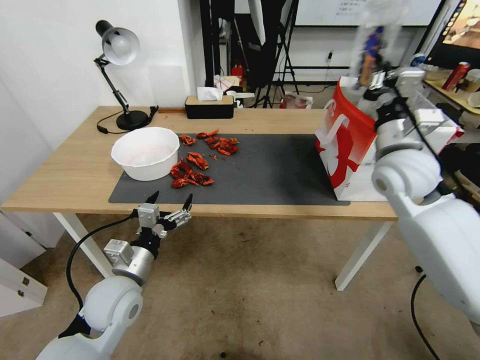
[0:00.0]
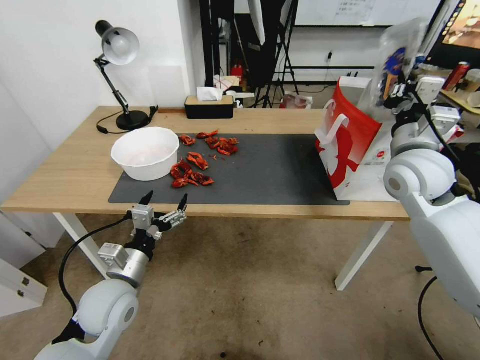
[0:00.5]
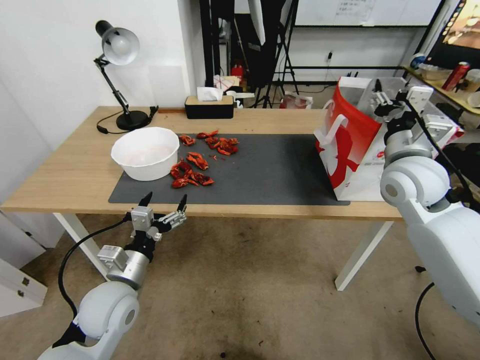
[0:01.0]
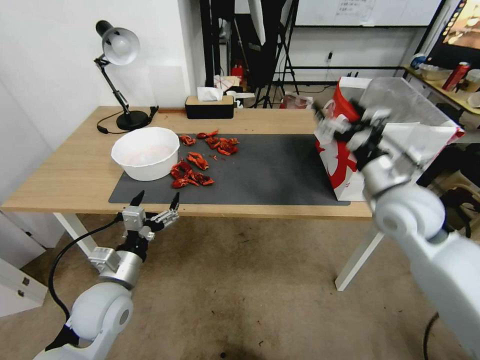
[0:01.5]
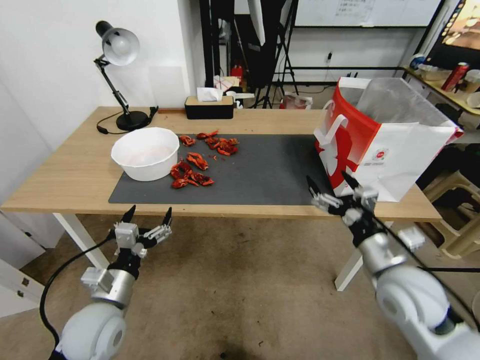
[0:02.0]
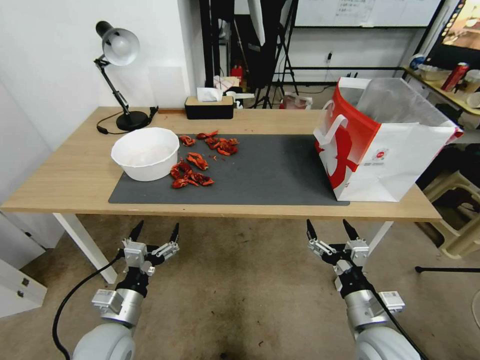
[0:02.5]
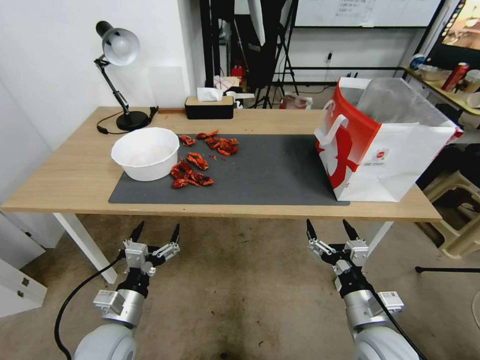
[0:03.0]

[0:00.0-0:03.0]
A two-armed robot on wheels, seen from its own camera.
Task of the whole recording: Close the takeout container lid, then place the container into the takeout bag.
0:00.0 to 0:01.5: The right gripper is displaced backward by some 5 cm, and opens up.
0:01.5 to 0:03.0: The left gripper heads downward and backward, covering approximately 10 cm; the right gripper is displaced downward and backward by roughly 25 cm.
